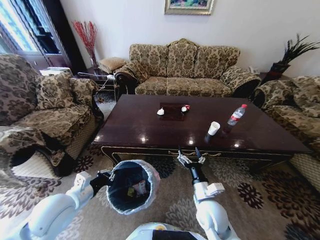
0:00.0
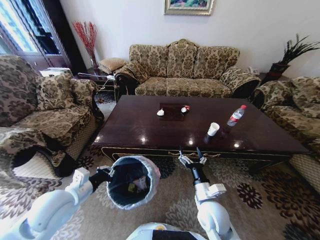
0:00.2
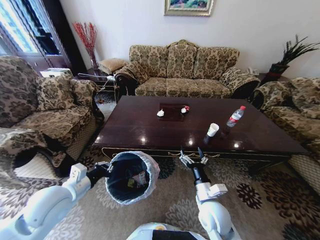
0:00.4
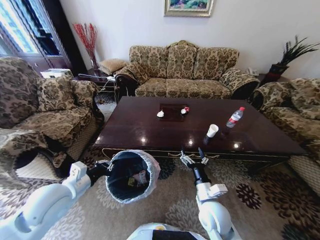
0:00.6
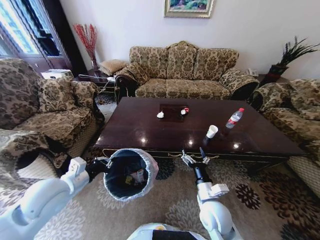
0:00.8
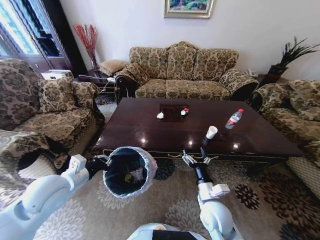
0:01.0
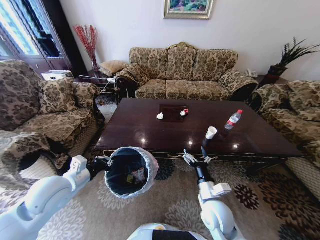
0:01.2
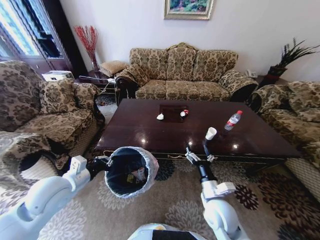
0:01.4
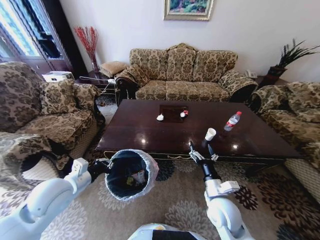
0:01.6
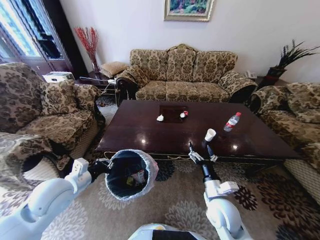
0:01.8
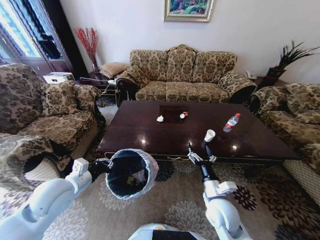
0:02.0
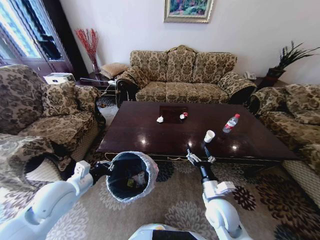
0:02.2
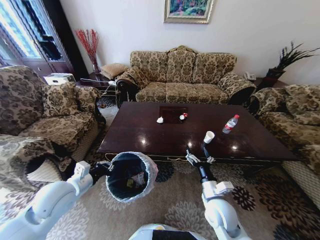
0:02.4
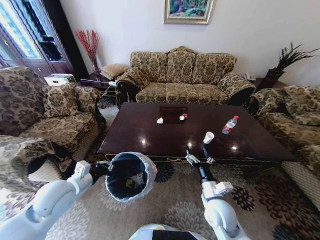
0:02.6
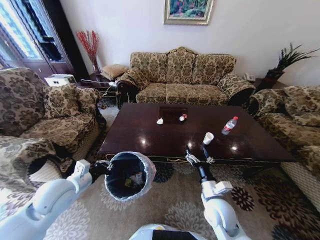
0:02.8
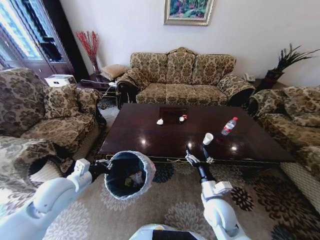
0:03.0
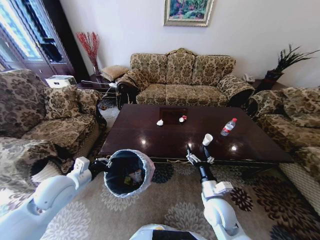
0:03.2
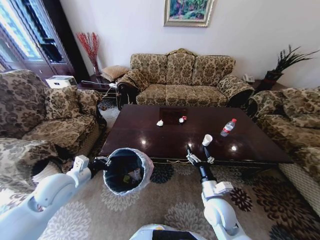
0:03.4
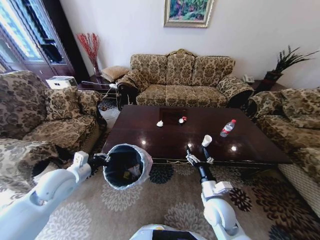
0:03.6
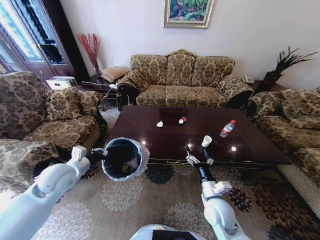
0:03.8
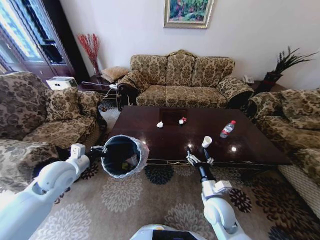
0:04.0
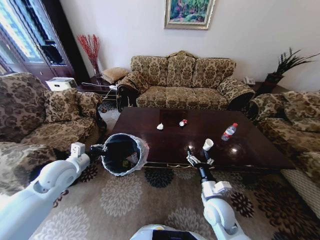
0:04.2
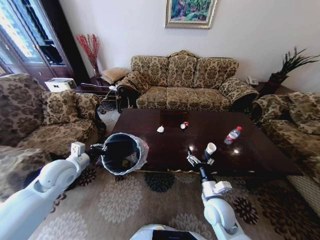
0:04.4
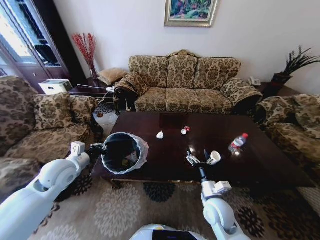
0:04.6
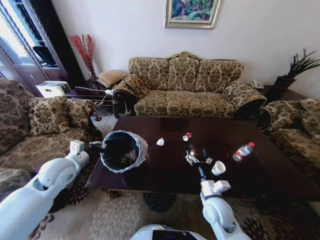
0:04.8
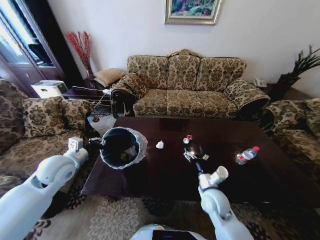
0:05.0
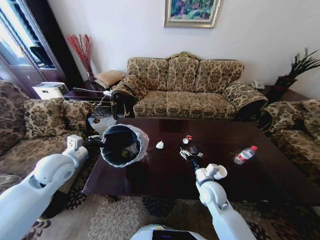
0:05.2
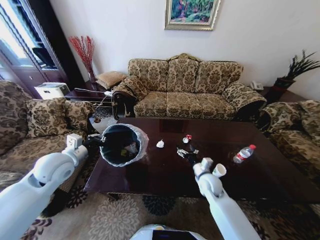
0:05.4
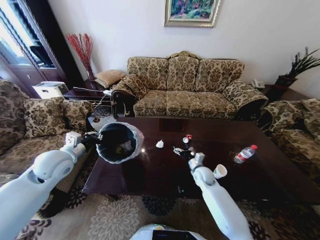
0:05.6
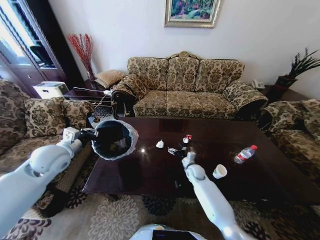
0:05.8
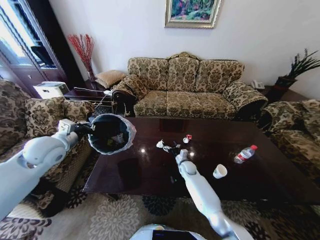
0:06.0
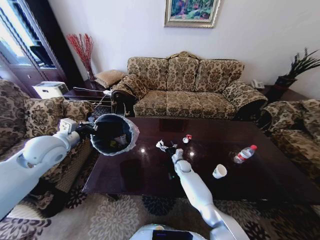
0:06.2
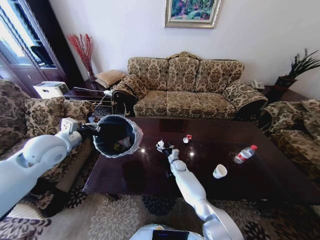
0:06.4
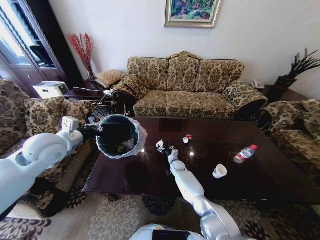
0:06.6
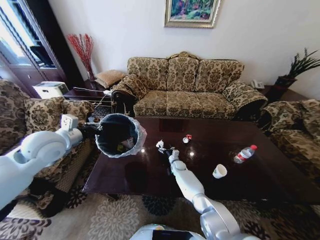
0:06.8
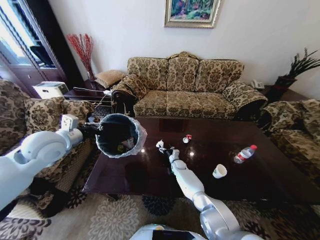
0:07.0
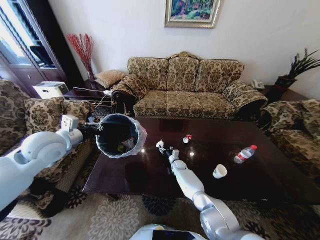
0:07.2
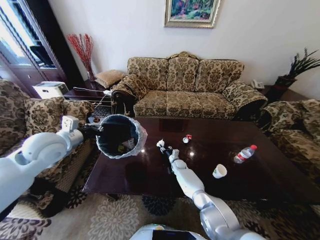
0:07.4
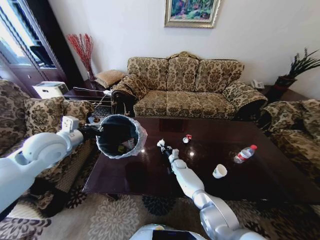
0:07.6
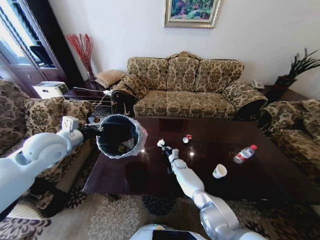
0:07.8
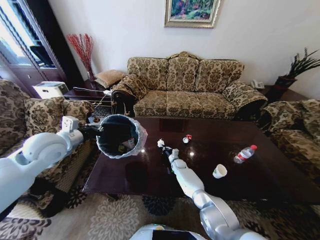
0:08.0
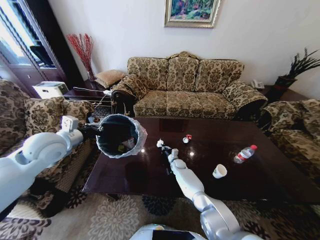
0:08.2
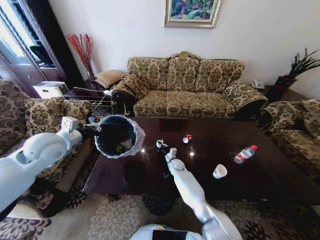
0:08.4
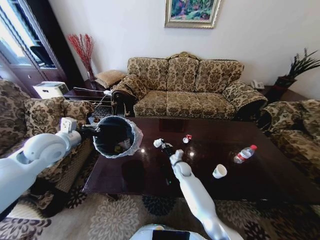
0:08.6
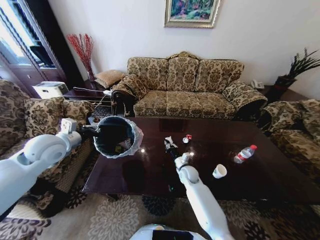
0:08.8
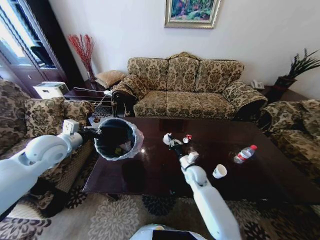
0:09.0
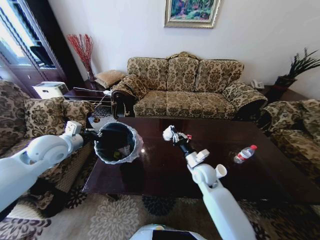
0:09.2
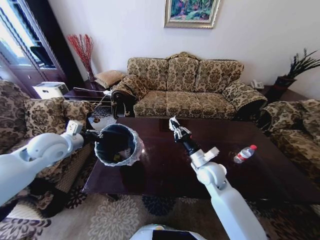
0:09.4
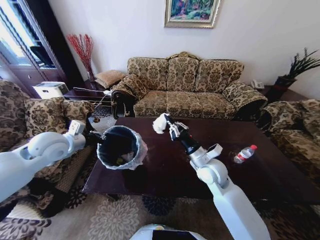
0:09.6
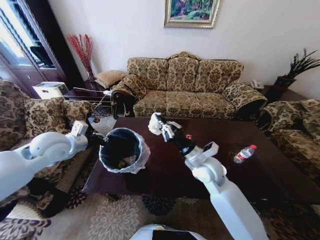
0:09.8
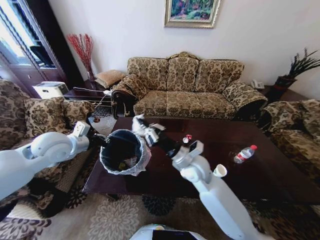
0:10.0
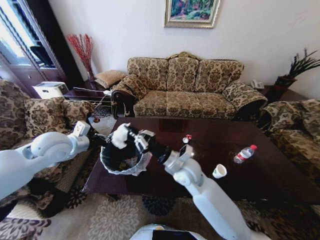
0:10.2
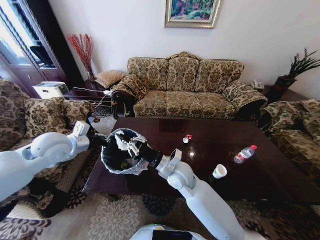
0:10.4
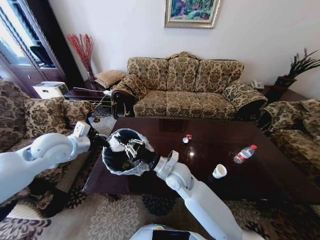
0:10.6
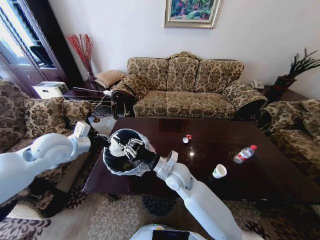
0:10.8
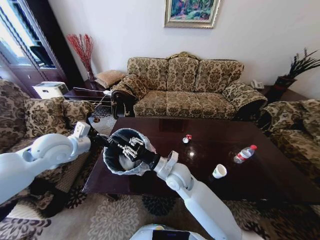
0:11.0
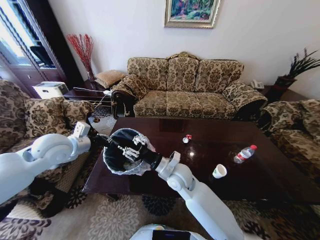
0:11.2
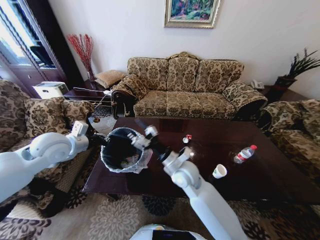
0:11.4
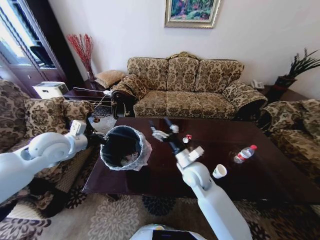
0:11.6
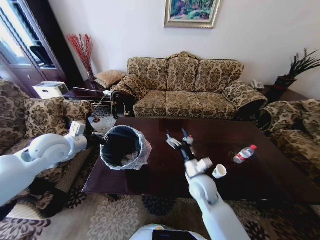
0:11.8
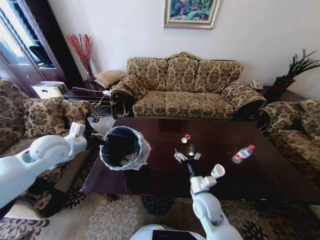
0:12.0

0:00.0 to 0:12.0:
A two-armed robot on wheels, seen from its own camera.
Task of the whole recording: Move to the front of the table and place the trash on the table into the trash bin.
0:03.0 to 0:04.4: The left gripper shifts approximately 5 cm forward.
0:04.4 to 0:06.0: The left gripper travels upward by roughly 10 cm. The right gripper shifts approximately 25 cm forward and downward.
0:06.0 to 0:07.6: The right gripper is displaced downward and forward by about 10 cm, and closes its fingers.
0:07.6 to 0:09.0: The right gripper shifts about 20 cm upward and backward, and closes up.
0:09.0 to 0:10.4: The right gripper shifts roughly 20 cm upward, to the left and backward.
0:10.4 to 0:12.0: The right gripper shifts roughly 15 cm to the right, downward and backward, and opens up.

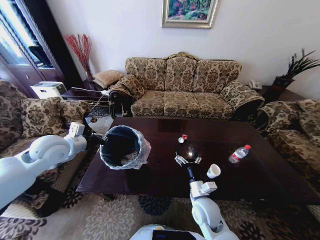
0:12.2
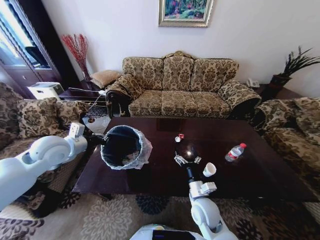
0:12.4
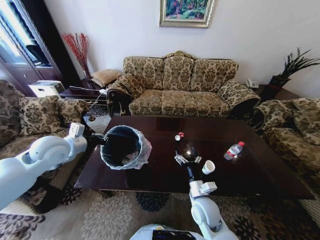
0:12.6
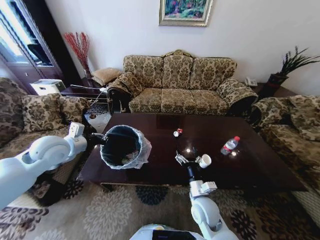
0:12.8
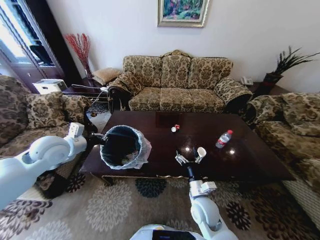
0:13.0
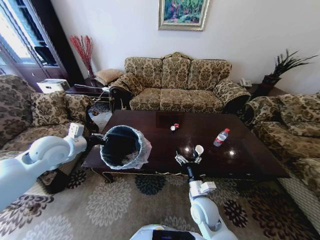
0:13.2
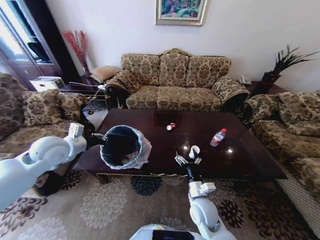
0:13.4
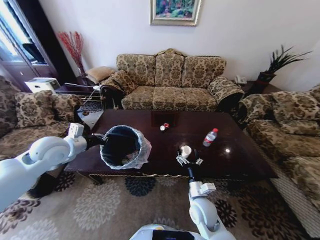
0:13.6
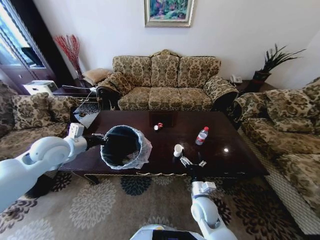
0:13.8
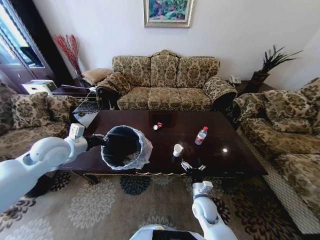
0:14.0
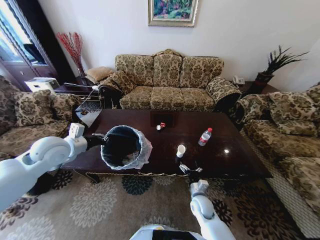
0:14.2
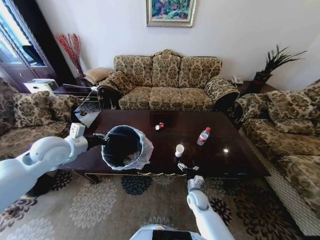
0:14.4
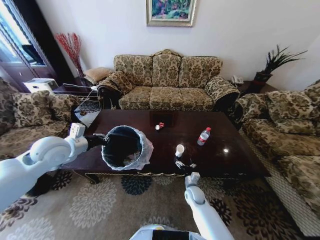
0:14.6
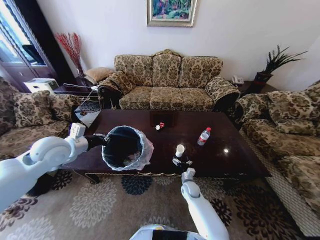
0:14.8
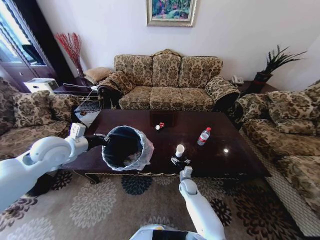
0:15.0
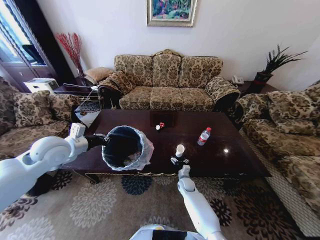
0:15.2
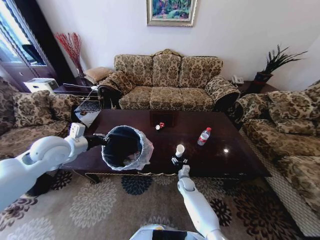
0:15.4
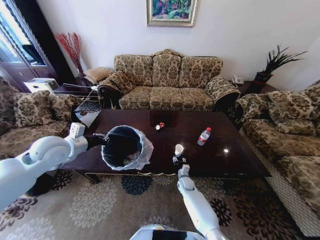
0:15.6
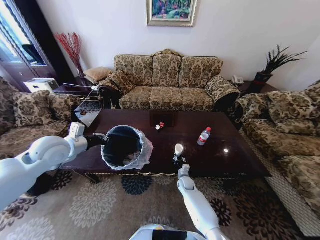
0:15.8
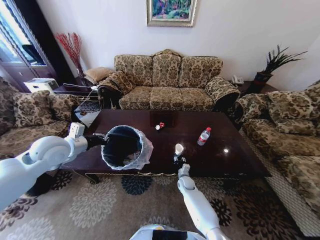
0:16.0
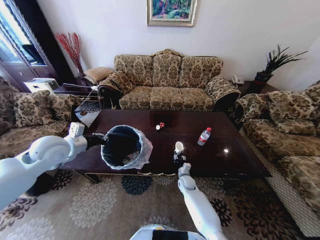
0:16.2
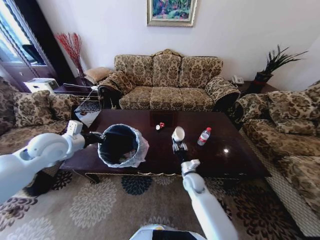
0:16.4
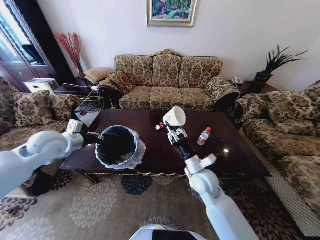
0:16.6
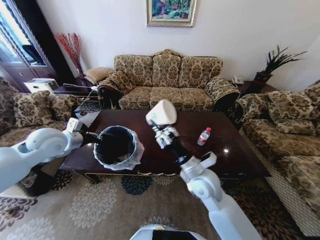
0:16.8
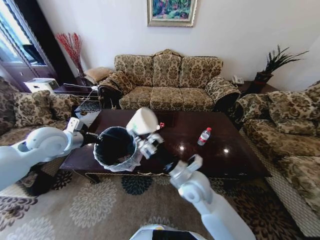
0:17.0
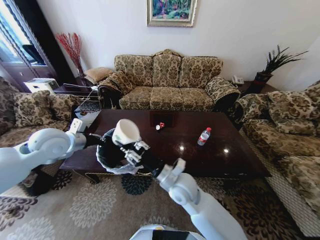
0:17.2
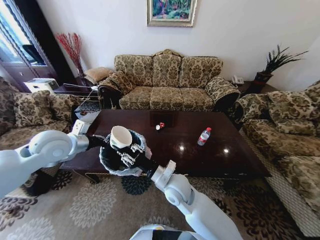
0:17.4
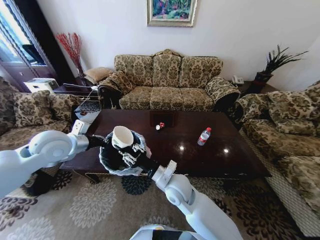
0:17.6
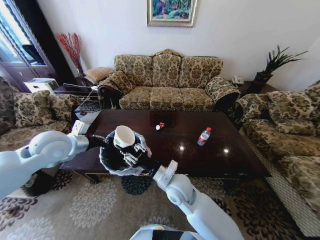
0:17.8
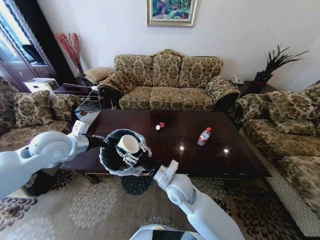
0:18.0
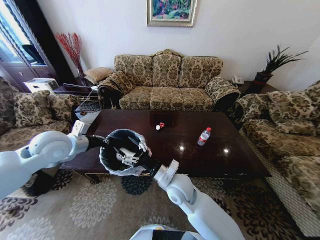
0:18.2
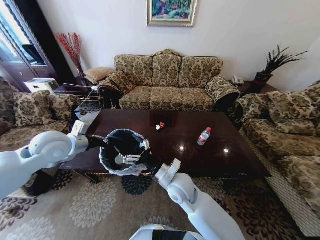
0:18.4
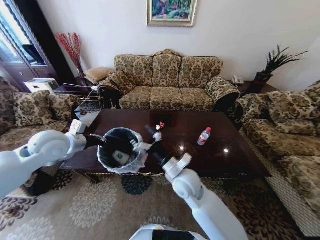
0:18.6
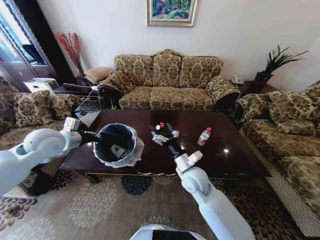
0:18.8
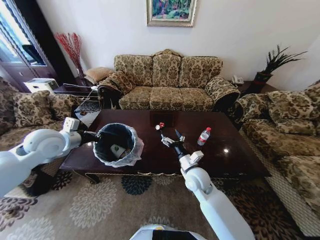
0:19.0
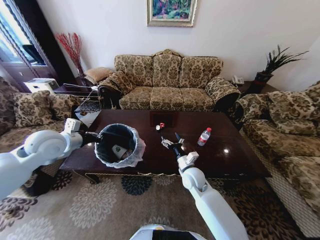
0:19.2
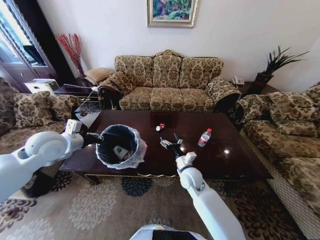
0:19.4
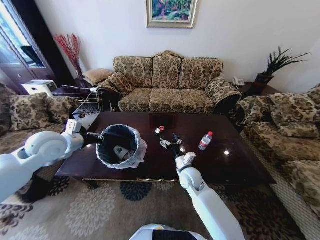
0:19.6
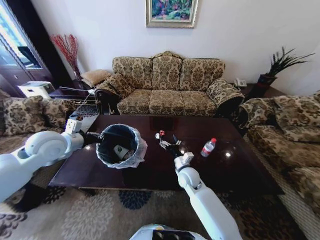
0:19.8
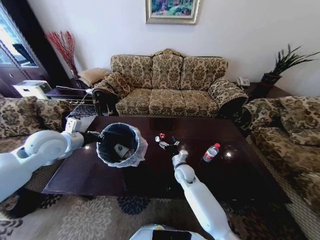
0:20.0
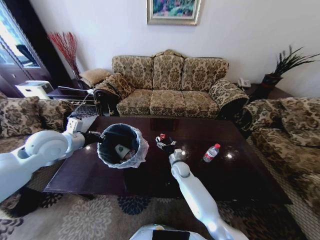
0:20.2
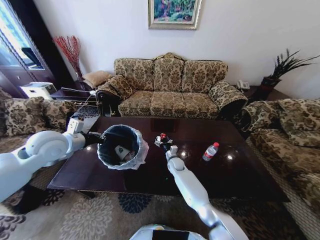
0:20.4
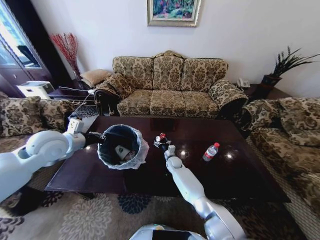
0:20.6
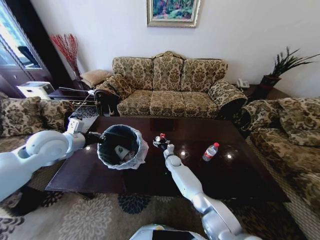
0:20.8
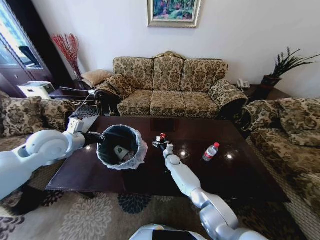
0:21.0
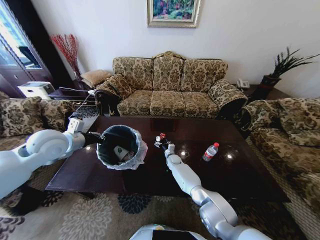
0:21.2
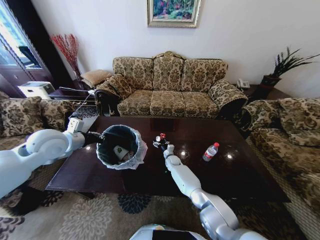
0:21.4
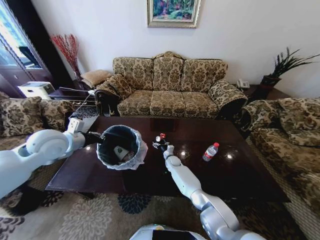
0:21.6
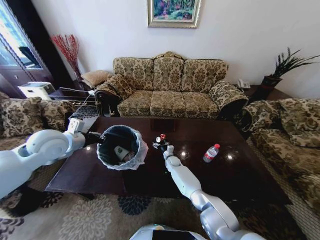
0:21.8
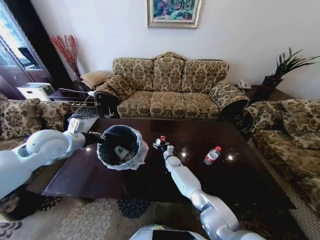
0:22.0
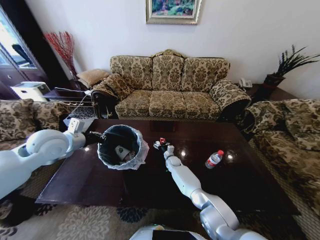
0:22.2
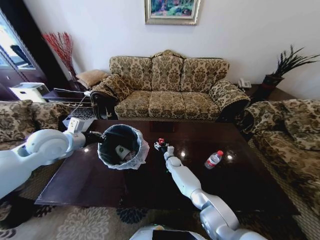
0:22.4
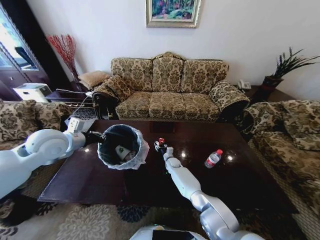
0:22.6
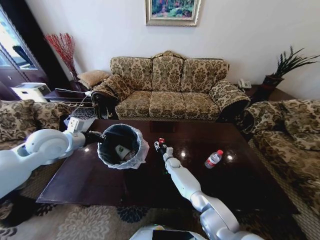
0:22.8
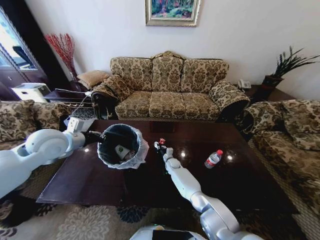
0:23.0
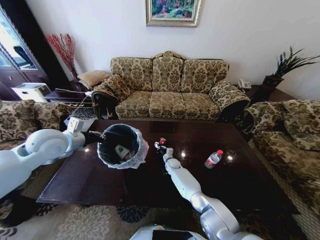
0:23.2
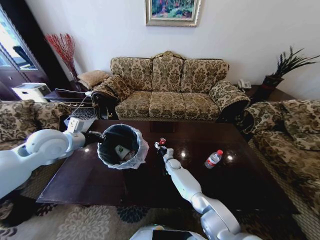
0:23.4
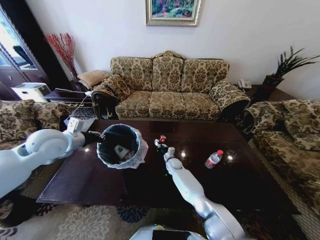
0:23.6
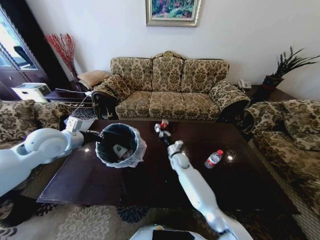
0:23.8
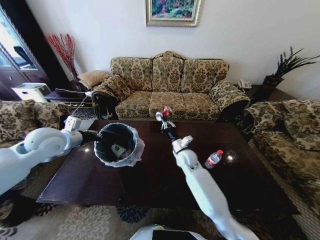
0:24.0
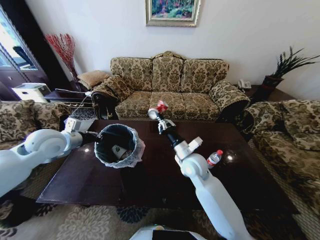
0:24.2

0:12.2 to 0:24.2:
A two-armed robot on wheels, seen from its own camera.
Task of the whole recording: Move to the front of the table and place the trash on the table into the trash bin.
0:13.8 to 0:15.2: The right gripper goes about 20 cm downward and forward.
0:15.2 to 0:16.6: The right gripper shifts about 25 cm upward, and closes up.
0:16.6 to 0:18.2: The right gripper moves to the left, roughly 10 cm, and opens its fingers.
0:18.2 to 0:19.8: The right gripper moves downward, forward and to the right, about 15 cm.
0:19.8 to 0:21.2: The right gripper heads forward and downward, covering roughly 20 cm.
0:21.2 to 0:22.6: The right gripper closes its fingers.
0:22.6 to 0:24.2: The right gripper goes some 30 cm upward and backward, and closes its fingers.
